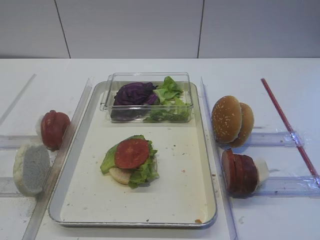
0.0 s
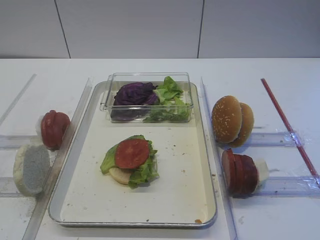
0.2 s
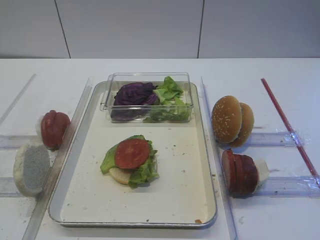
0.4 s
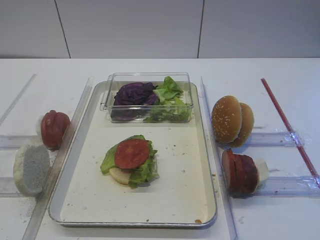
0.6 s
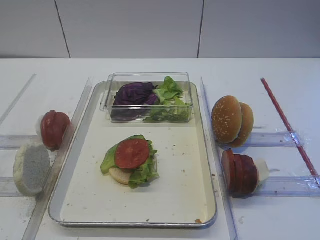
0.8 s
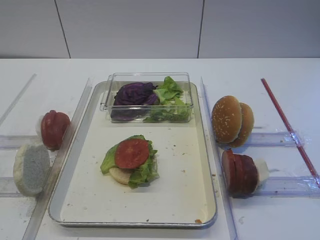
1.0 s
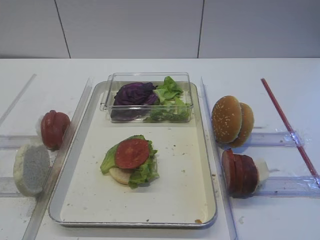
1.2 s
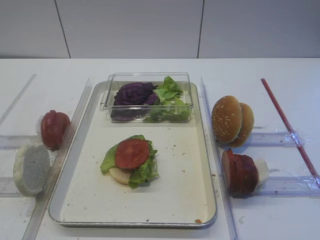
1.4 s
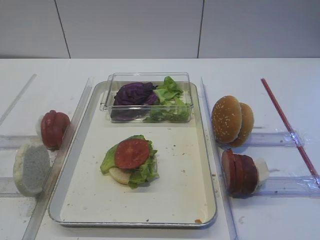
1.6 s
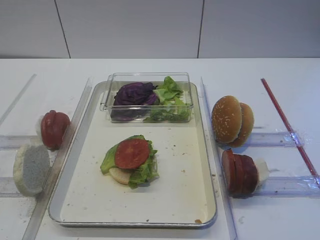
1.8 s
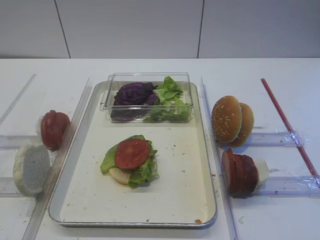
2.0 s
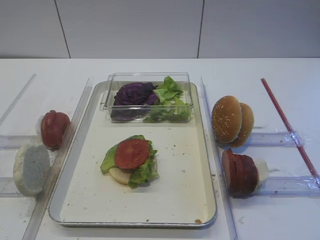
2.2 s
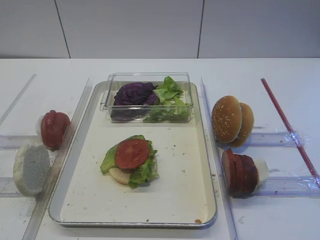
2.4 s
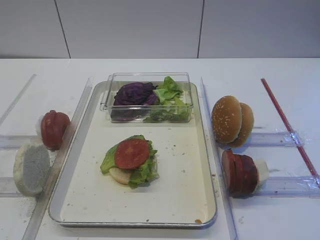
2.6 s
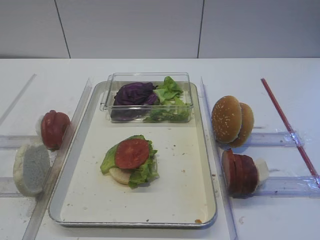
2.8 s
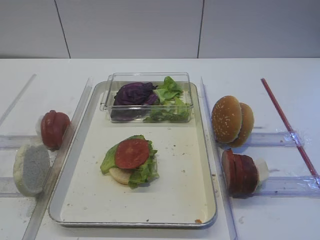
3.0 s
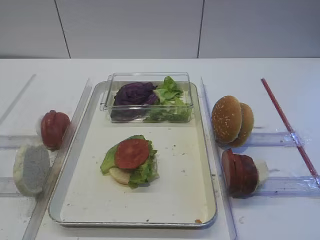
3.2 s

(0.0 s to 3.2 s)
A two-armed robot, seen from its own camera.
0.0 s - 3.2 s: The two grippers keep their place.

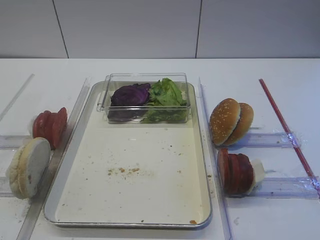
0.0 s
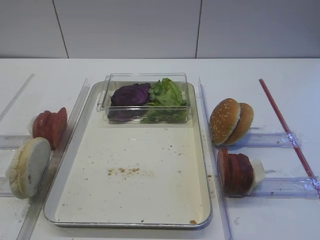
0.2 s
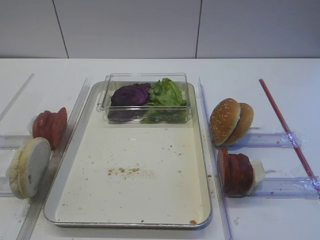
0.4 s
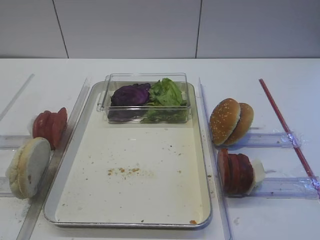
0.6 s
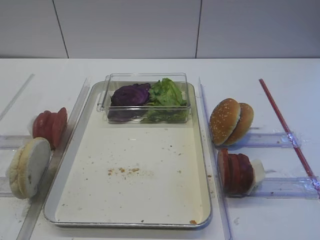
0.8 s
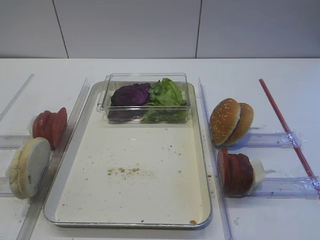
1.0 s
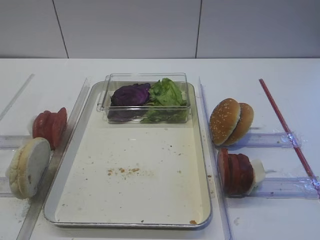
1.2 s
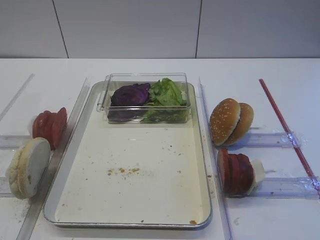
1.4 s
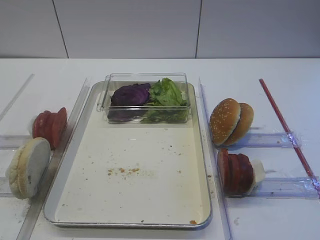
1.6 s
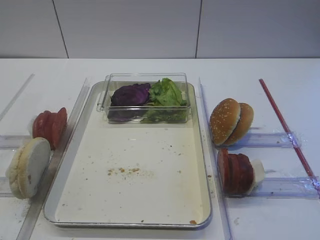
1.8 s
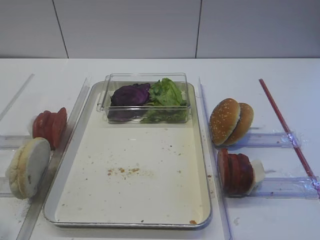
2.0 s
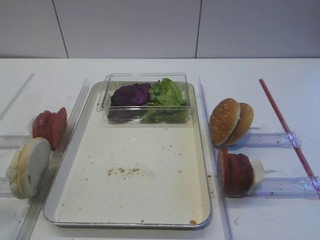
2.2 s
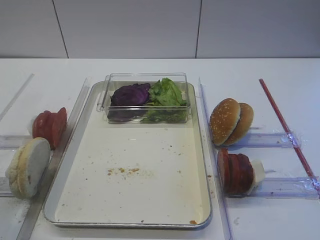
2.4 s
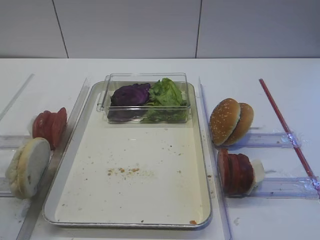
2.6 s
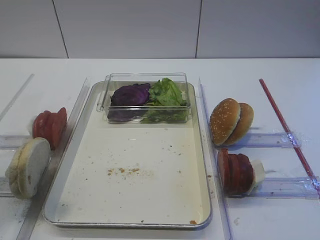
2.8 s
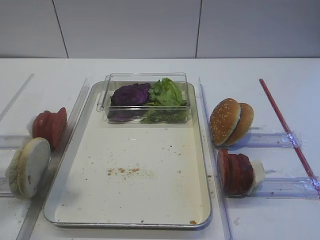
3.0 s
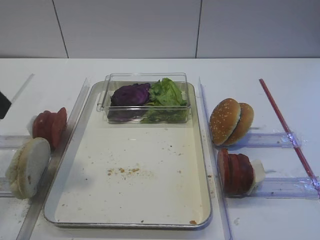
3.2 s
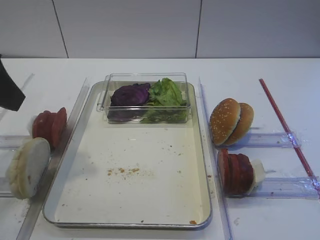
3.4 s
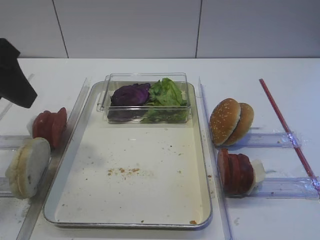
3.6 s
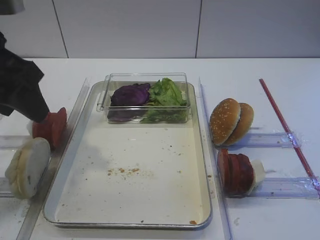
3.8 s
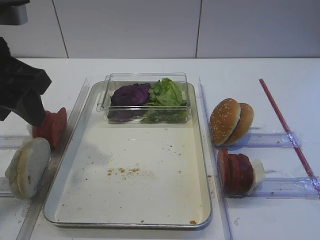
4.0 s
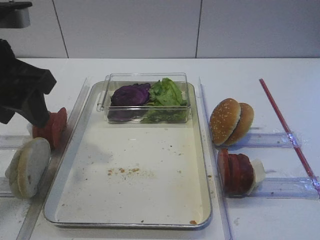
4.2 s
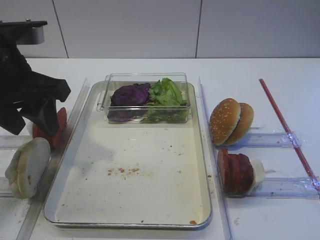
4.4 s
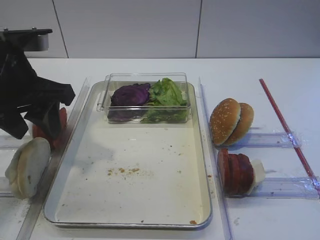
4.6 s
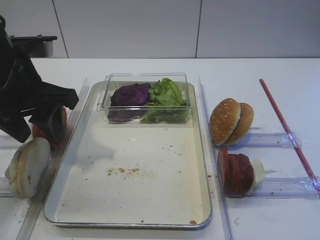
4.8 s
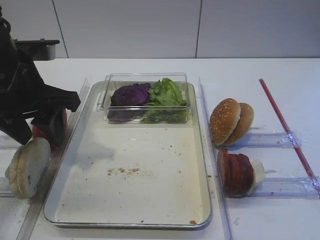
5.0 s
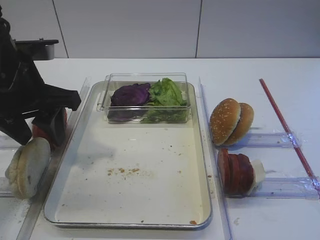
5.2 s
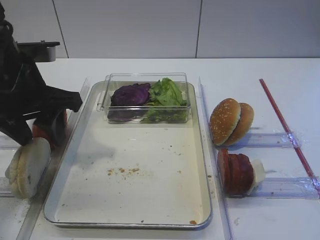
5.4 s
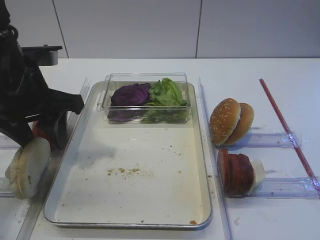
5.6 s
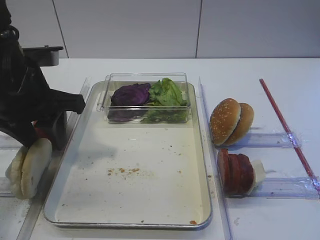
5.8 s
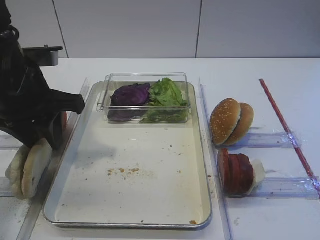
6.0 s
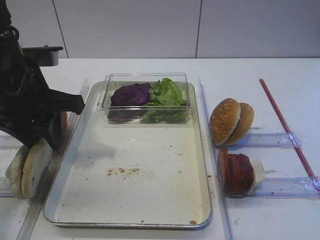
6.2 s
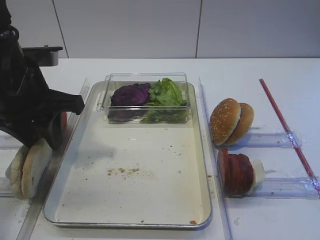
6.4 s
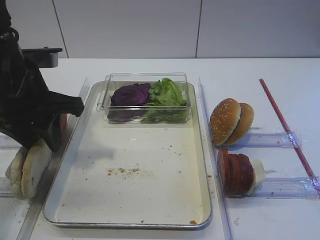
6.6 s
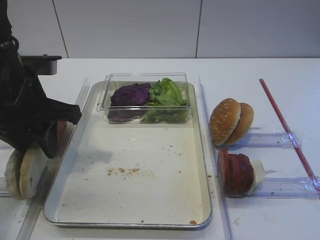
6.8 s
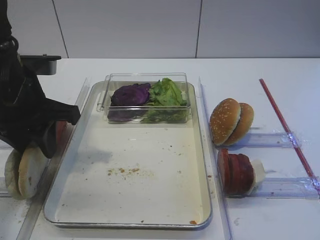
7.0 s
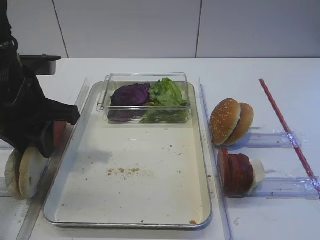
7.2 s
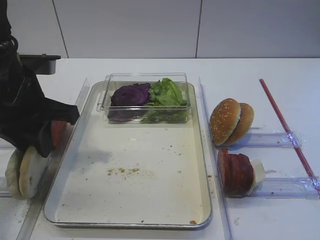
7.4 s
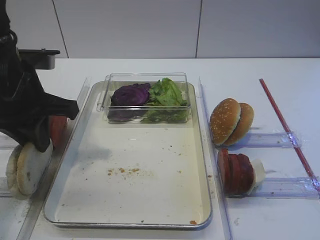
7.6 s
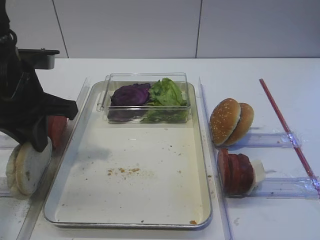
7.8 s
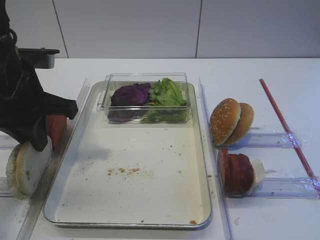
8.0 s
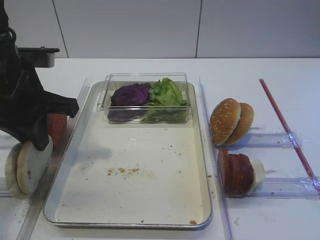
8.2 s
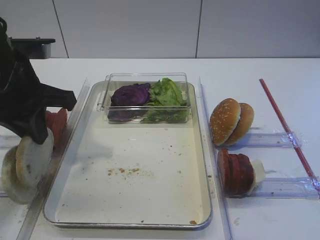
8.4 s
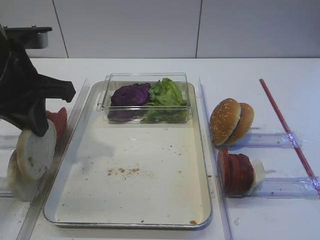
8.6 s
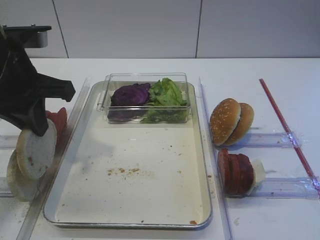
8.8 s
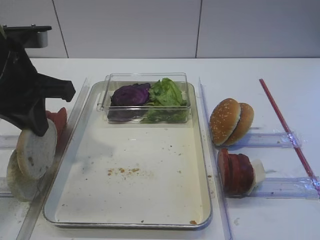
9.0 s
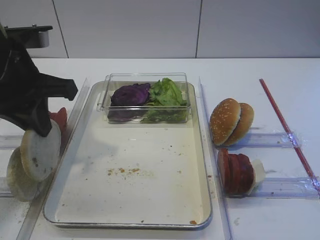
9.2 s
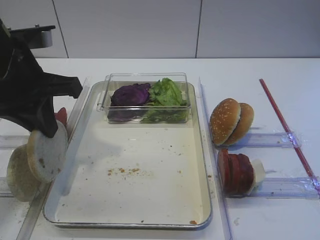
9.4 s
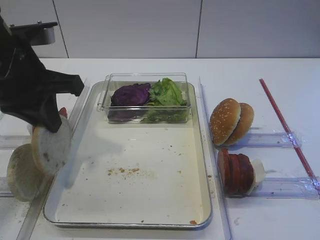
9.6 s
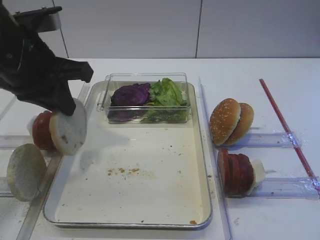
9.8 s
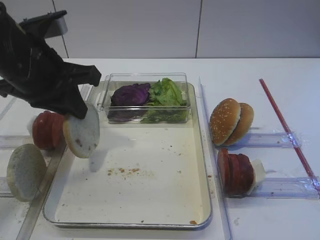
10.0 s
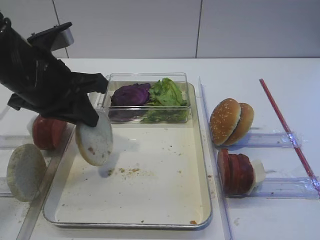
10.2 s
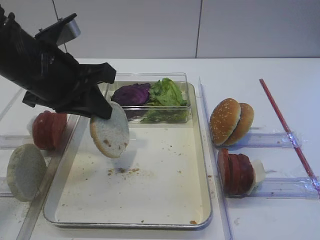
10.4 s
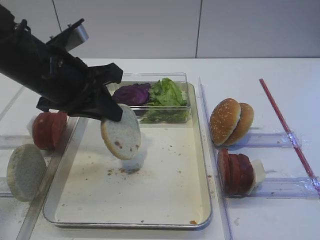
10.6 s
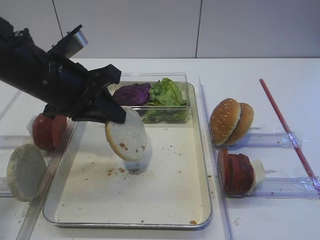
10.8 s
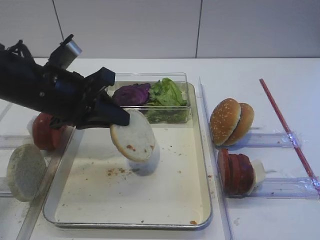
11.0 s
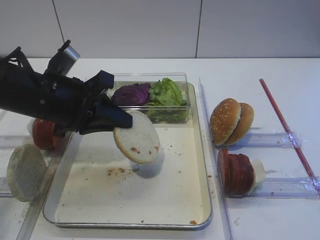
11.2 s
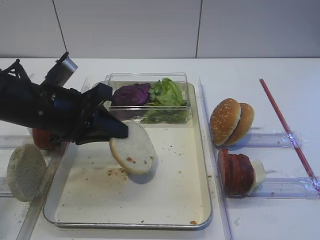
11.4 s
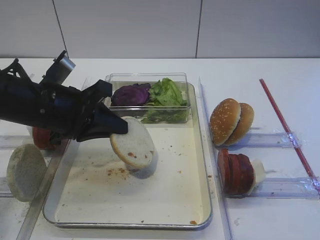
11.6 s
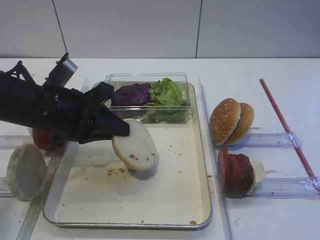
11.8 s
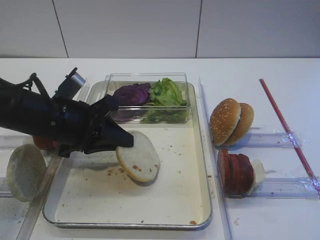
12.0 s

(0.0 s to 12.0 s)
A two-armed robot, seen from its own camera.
Step, 0.0 s - 9.0 s: Pick up the bread slice with the left gripper.
1.6 s - 3.0 s: The left gripper moves forward and upward, some 15 cm.
3.0 s - 4.4 s: The left gripper goes approximately 10 cm forward and downward.
4.4 s - 6.0 s: The grippers make only small movements.
6.0 s - 7.6 s: The left gripper closes.
7.6 s - 9.0 s: The grippers move only a little.
10.4 s - 12.0 s: The left gripper moves downward, approximately 10 cm.

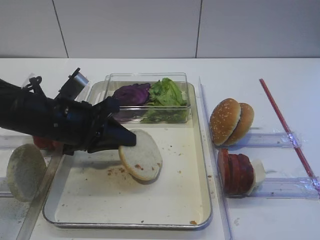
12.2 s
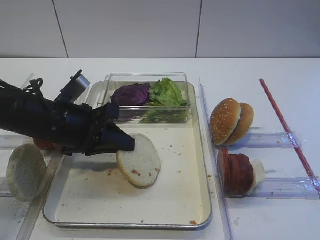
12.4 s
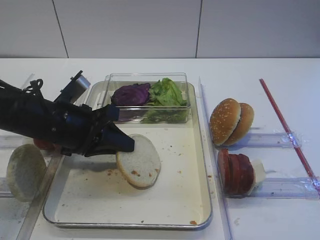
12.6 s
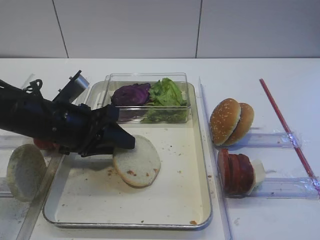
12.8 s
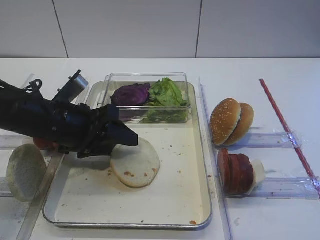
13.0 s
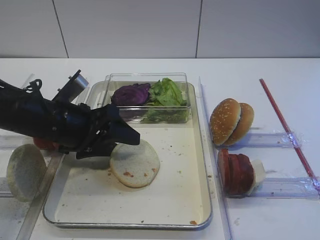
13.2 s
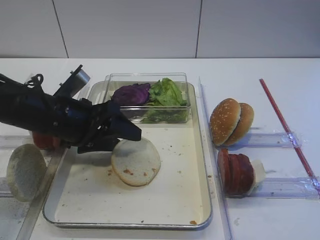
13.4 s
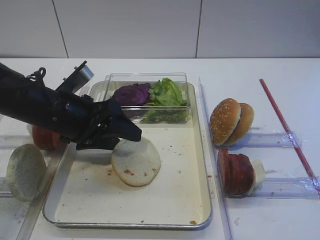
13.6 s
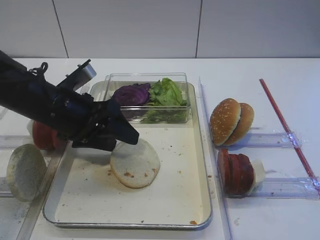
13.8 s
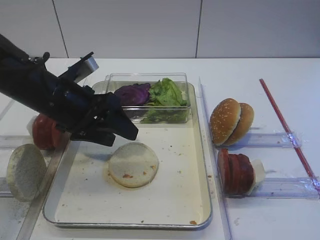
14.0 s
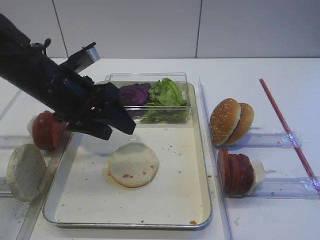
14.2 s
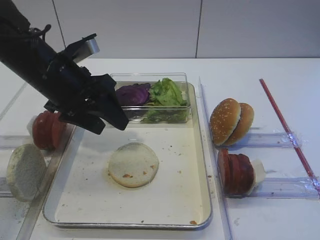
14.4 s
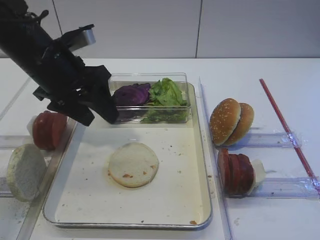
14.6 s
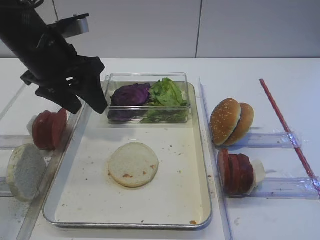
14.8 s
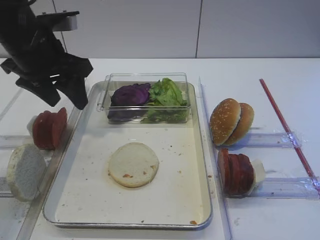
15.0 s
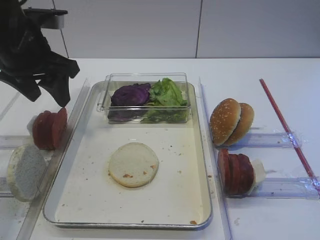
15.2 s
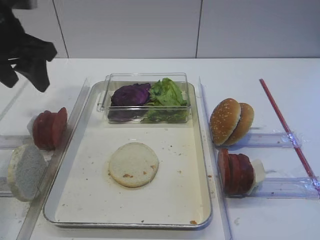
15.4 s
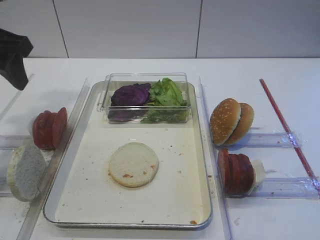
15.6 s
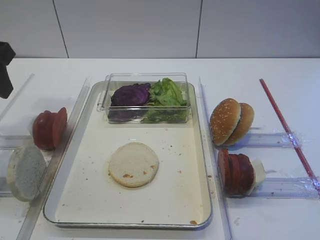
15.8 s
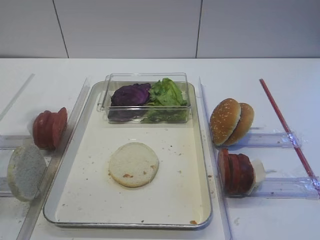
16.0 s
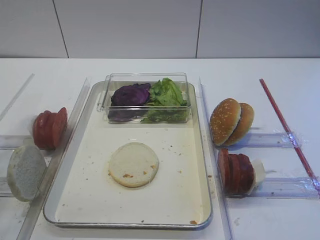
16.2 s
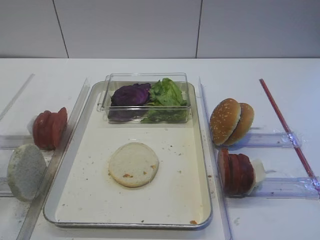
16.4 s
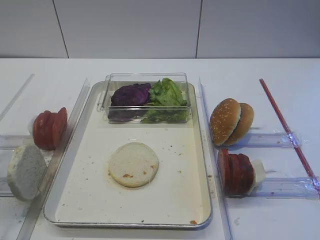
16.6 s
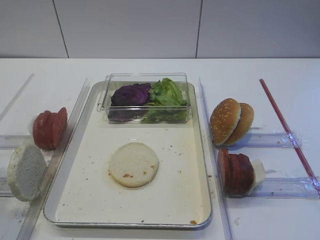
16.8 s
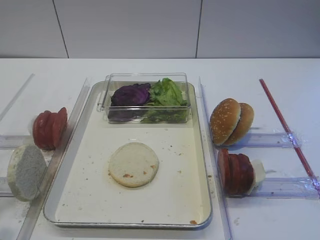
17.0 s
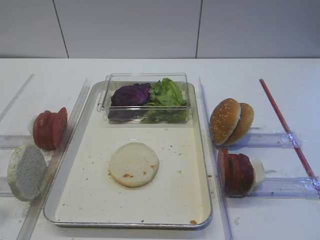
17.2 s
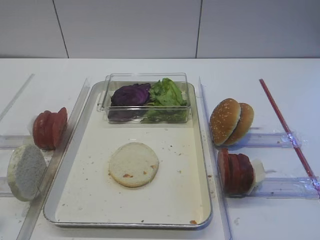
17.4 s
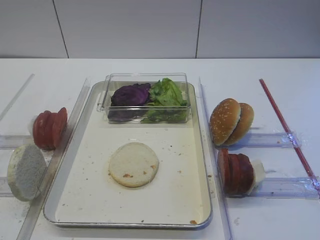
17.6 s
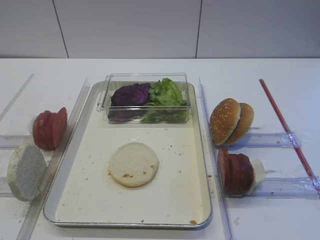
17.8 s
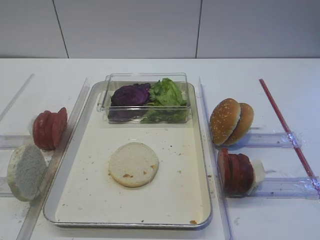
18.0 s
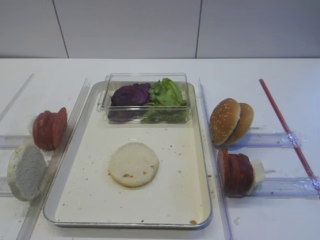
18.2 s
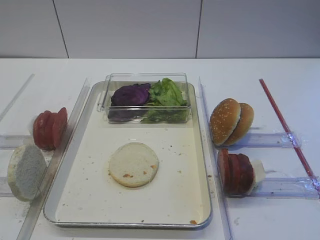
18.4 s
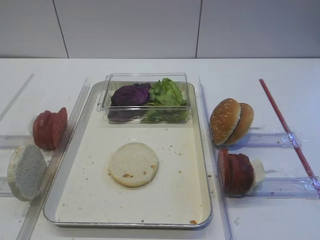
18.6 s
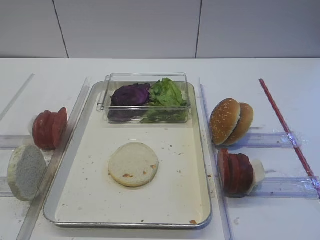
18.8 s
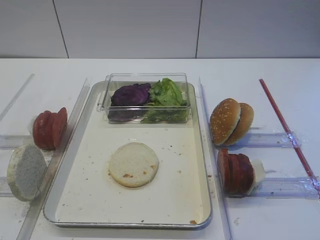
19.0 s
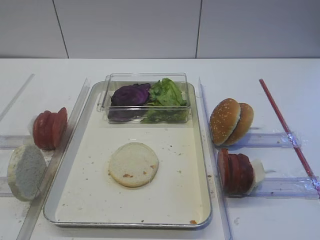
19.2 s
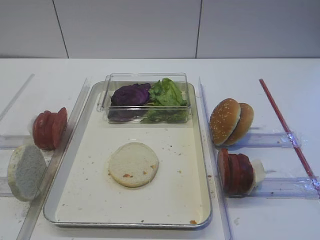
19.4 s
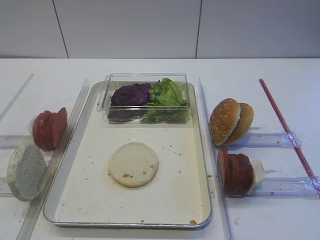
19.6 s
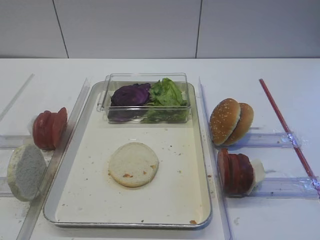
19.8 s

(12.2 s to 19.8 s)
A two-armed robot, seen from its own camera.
Step, 12.2 s - 14.2 s: Place the bread slice on the tray with the left gripper.
12.2 s - 13.8 s: The left gripper opens.
13.8 s - 15.2 s: The left gripper heads upward and to the left, covering roughly 10 cm.
15.2 s - 16.8 s: The left gripper goes some 25 cm backward.
16.8 s - 18.2 s: The left gripper moves backward, roughly 10 cm.
18.2 s - 19.8 s: Both grippers stay about where they are.
